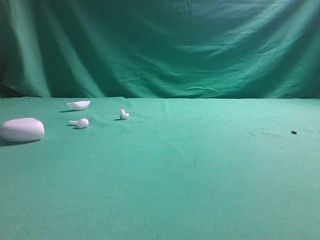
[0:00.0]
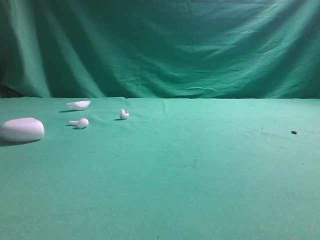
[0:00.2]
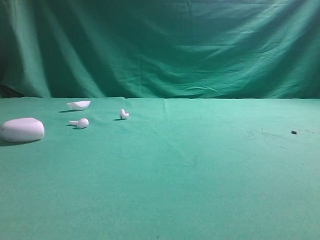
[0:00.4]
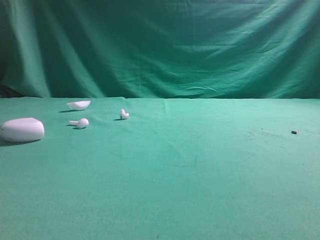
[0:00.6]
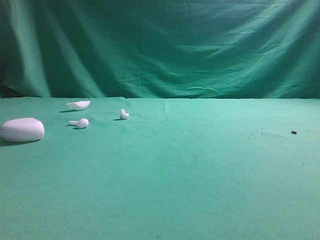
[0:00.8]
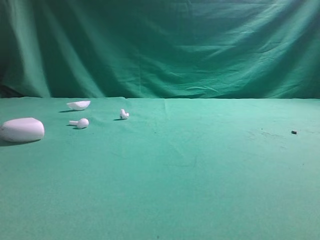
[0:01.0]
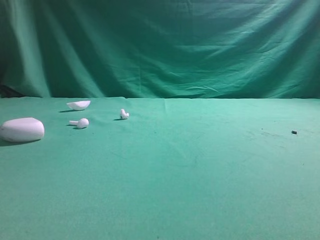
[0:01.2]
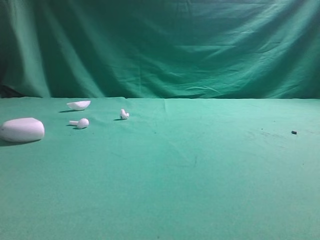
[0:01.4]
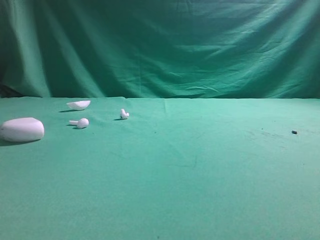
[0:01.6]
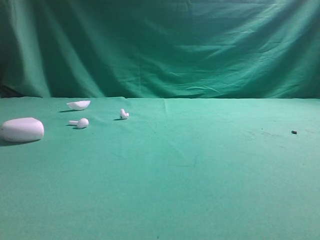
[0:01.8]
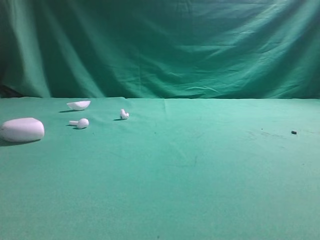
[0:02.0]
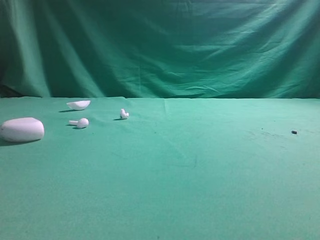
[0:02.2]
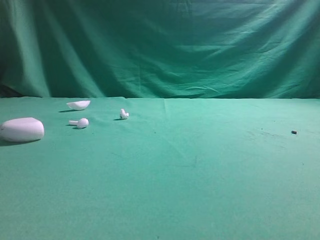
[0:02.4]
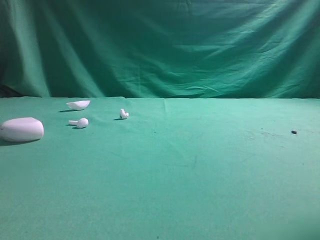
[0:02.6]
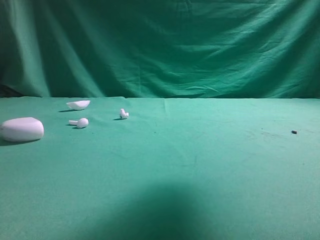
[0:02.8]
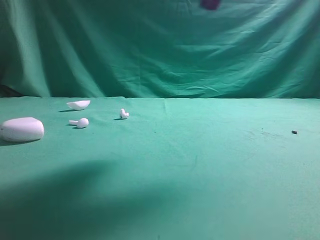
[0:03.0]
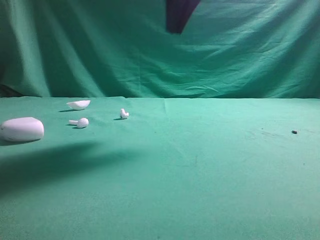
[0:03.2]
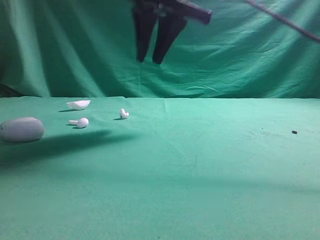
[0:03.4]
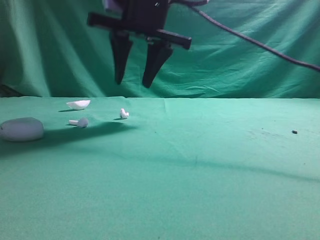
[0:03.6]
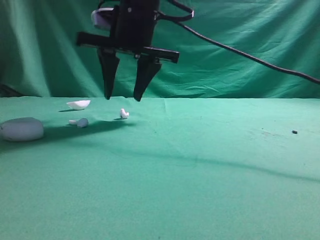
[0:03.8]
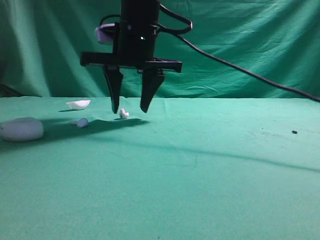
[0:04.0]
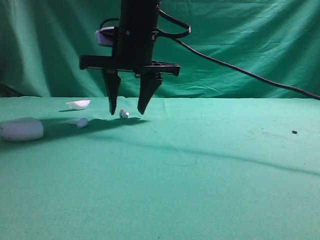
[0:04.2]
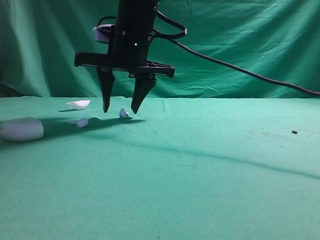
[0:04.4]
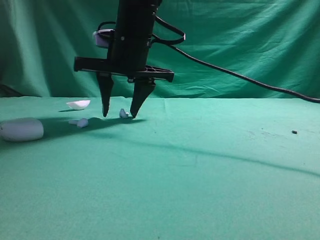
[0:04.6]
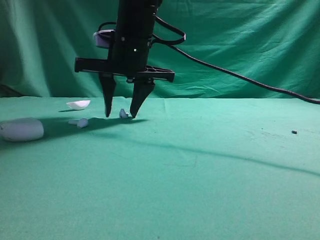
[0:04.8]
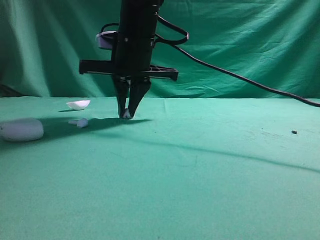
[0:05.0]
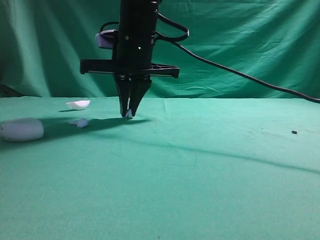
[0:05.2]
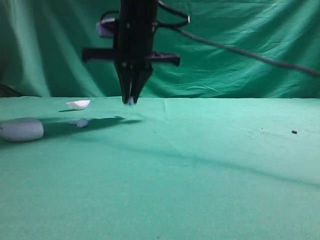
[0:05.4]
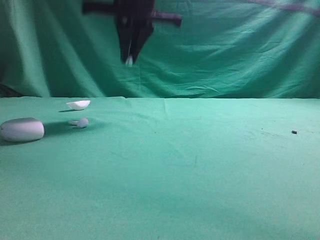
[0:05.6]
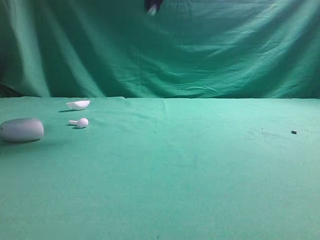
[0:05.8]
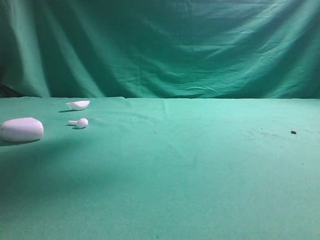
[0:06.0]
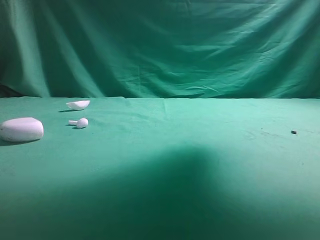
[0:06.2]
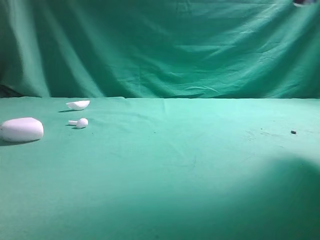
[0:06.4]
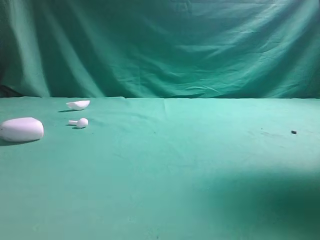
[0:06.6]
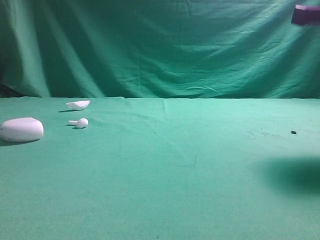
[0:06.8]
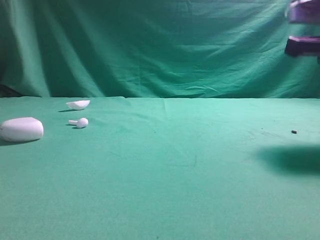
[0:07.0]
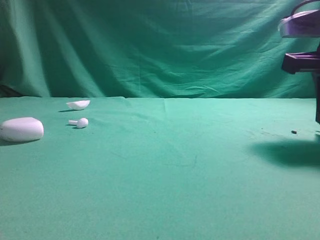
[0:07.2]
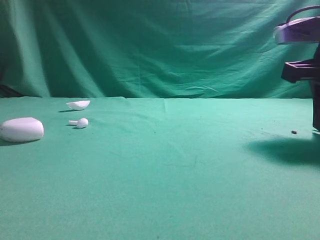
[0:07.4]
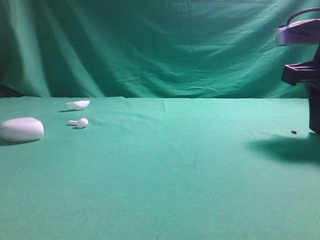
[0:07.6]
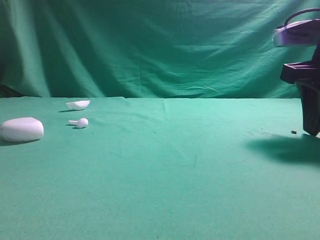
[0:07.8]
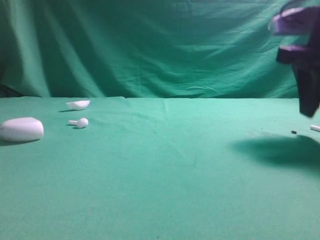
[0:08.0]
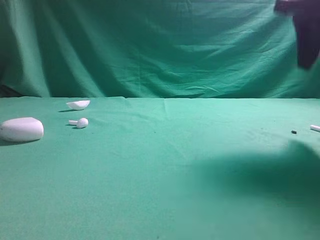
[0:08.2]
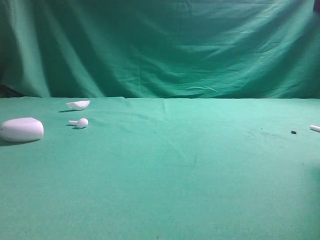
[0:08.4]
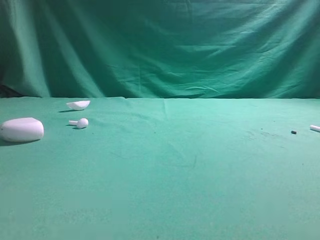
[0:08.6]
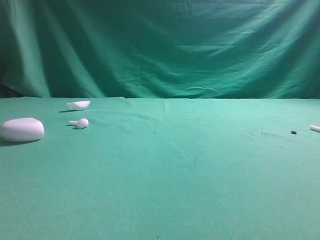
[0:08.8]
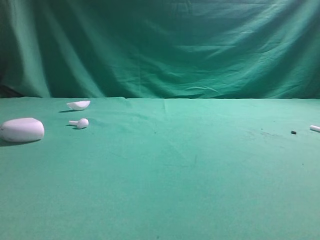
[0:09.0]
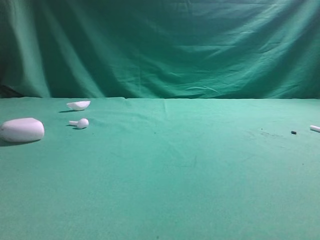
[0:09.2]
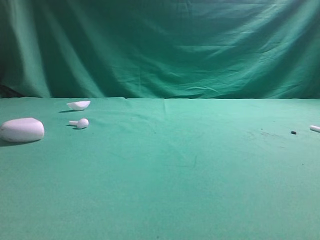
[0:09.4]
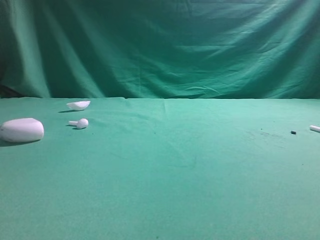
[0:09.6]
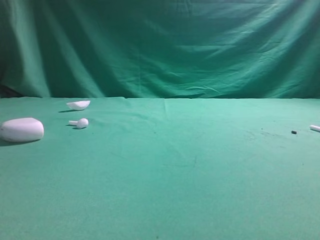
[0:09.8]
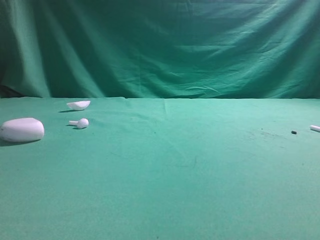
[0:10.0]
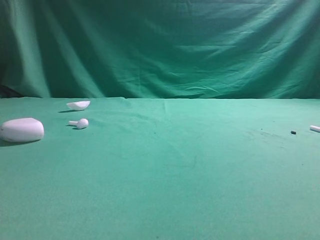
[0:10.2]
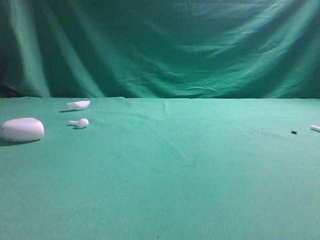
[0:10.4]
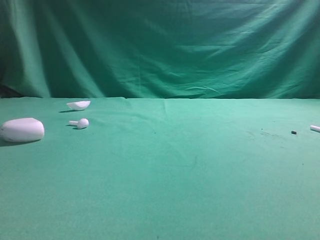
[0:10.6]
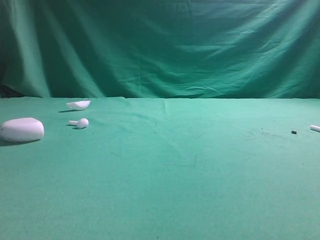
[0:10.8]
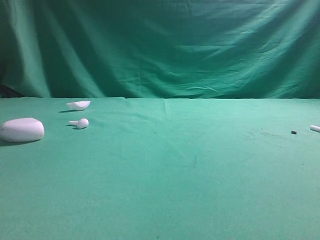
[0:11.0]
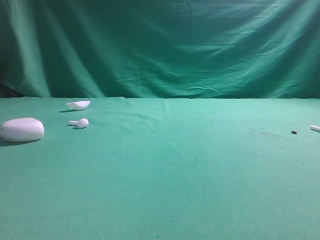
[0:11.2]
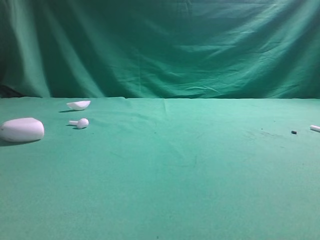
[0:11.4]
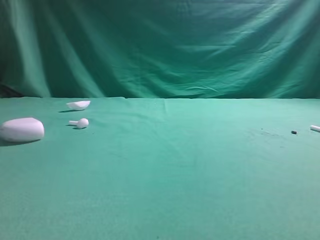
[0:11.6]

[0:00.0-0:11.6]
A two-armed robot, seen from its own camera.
Step, 0:00.0 to 0:05.4: Grasp the Bluetooth earbud.
Step, 0:05.6 to 0:08.0: Place bluetooth earbud on the right side of the table.
